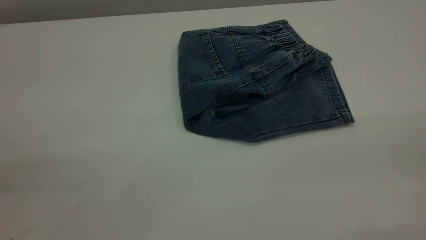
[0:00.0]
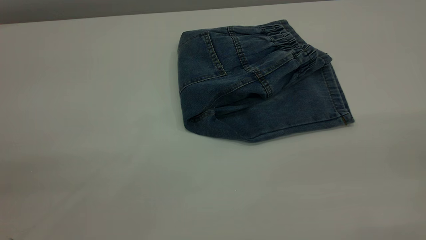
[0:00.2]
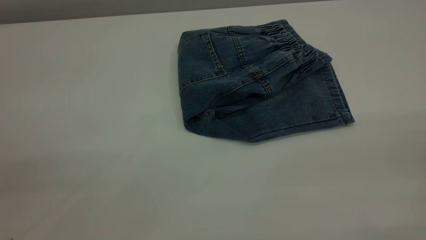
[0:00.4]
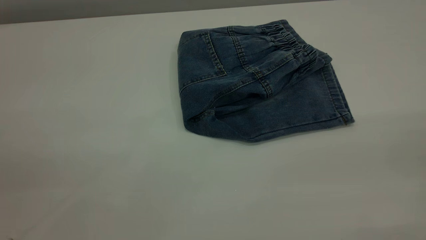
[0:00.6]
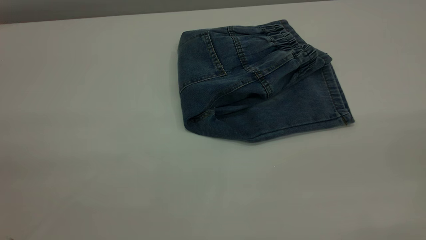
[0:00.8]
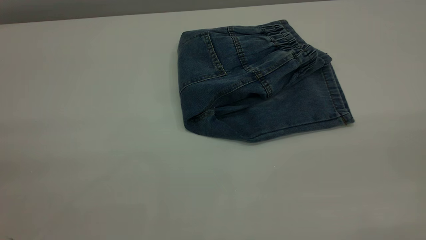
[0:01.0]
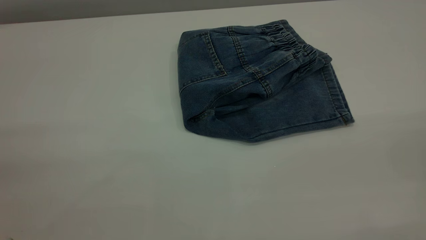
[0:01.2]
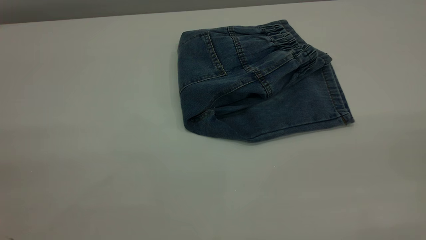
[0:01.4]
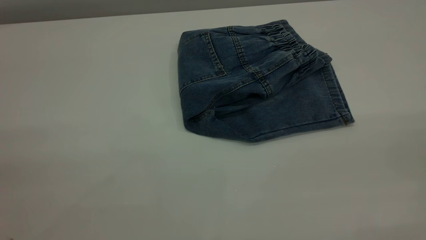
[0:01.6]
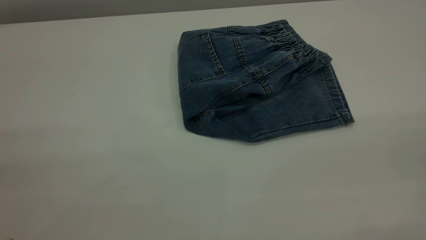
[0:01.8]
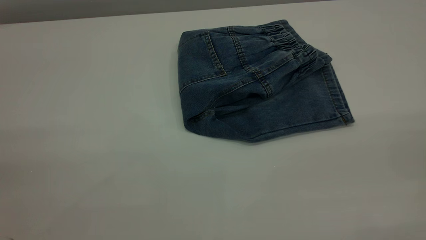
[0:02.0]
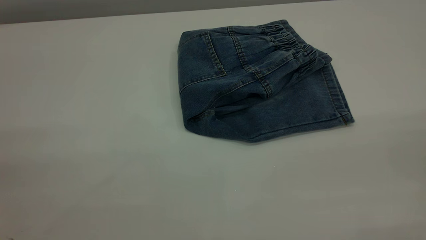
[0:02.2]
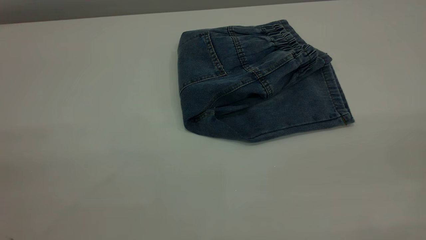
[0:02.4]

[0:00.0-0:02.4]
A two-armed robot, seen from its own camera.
0:01.2 to 0:02.4: Neither gripper changes place.

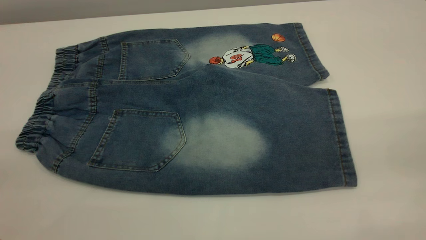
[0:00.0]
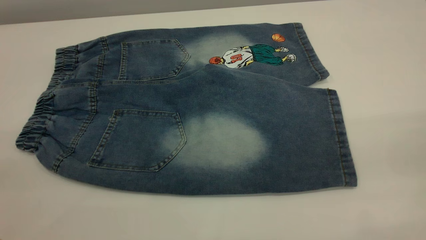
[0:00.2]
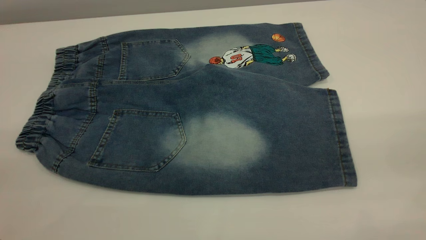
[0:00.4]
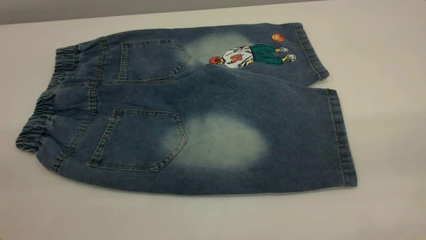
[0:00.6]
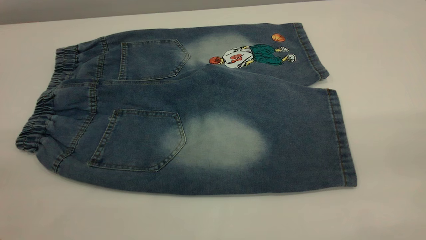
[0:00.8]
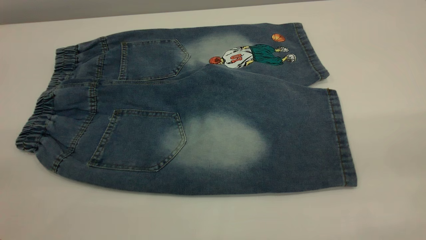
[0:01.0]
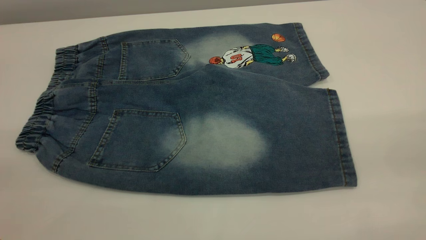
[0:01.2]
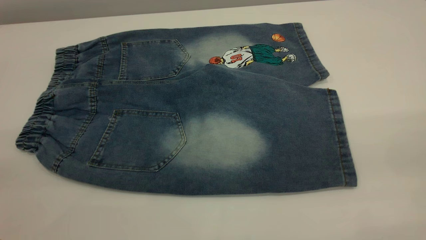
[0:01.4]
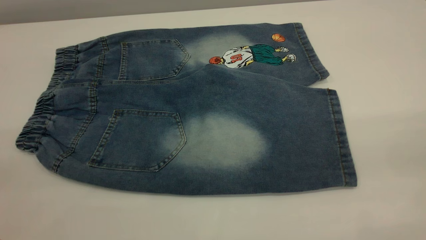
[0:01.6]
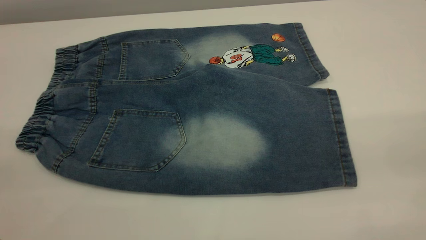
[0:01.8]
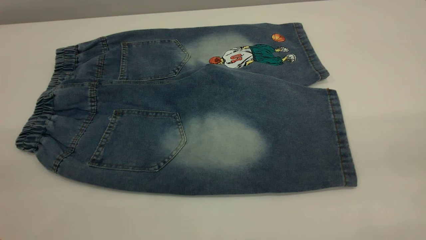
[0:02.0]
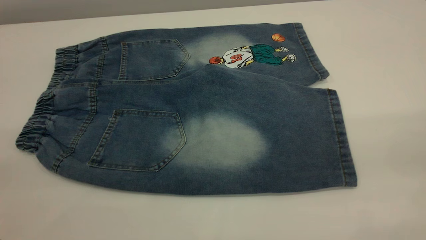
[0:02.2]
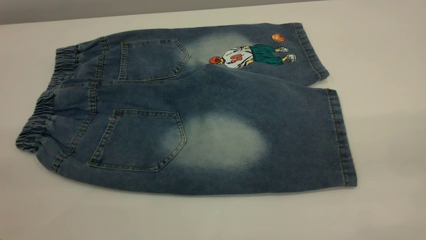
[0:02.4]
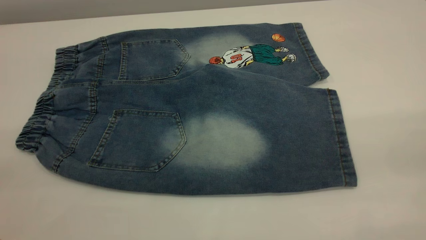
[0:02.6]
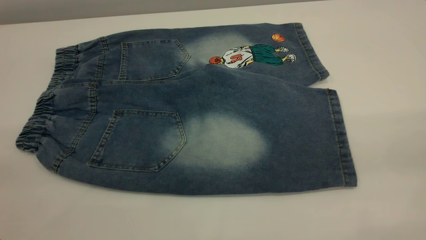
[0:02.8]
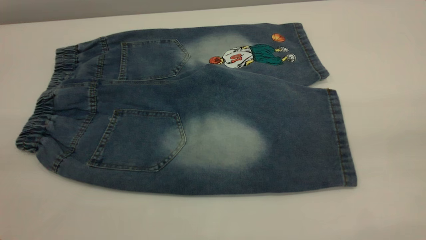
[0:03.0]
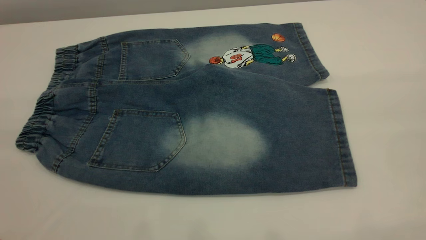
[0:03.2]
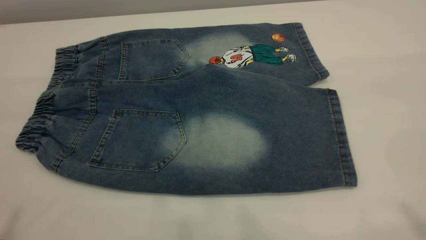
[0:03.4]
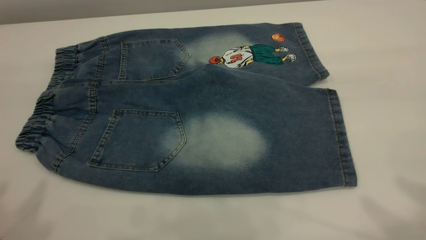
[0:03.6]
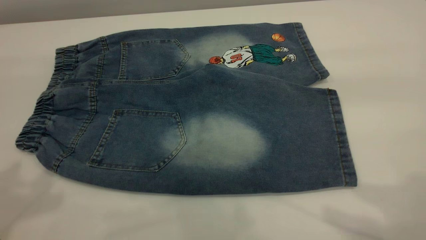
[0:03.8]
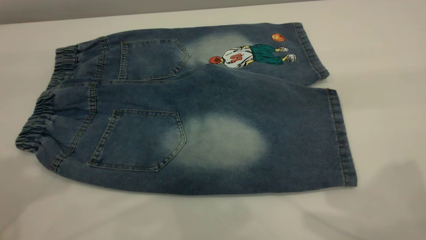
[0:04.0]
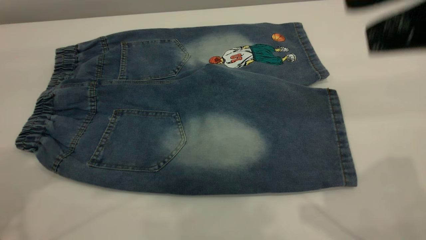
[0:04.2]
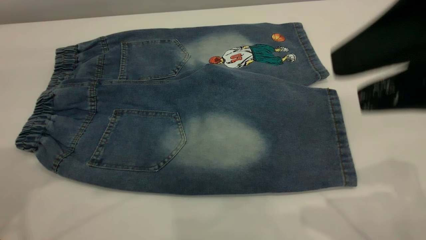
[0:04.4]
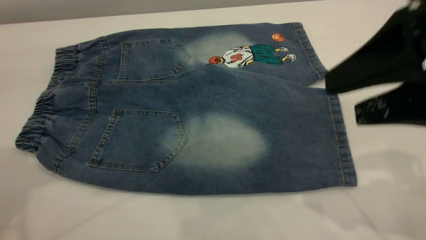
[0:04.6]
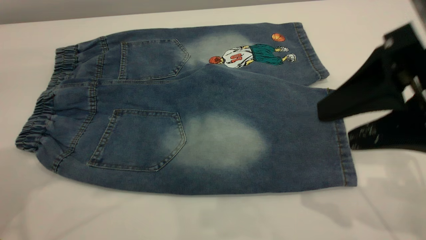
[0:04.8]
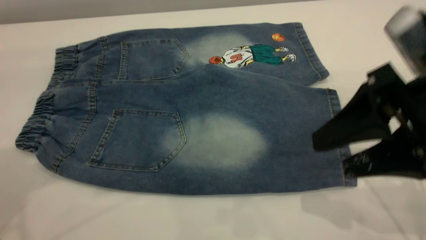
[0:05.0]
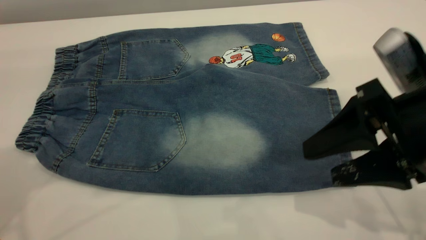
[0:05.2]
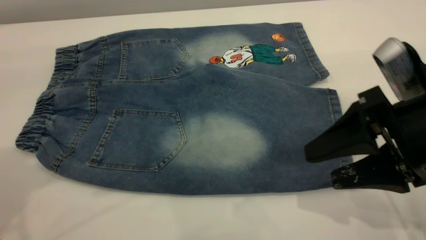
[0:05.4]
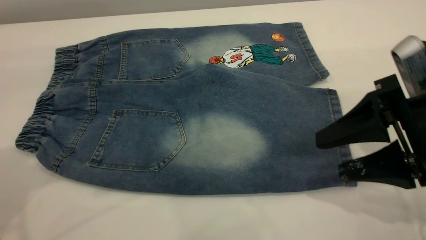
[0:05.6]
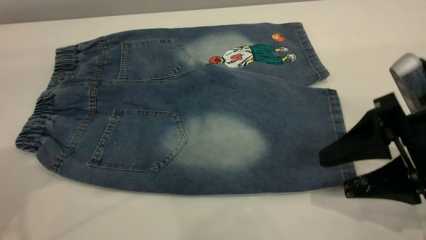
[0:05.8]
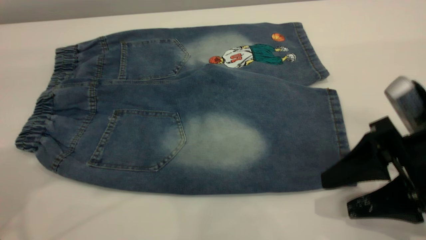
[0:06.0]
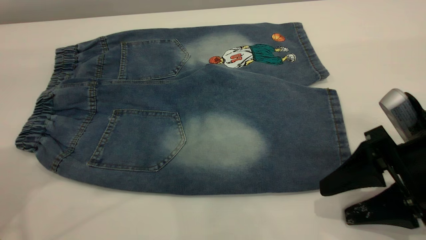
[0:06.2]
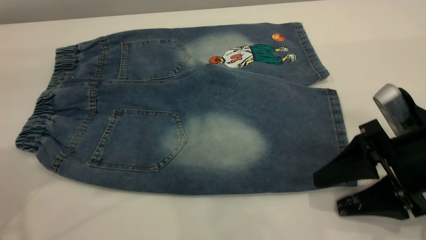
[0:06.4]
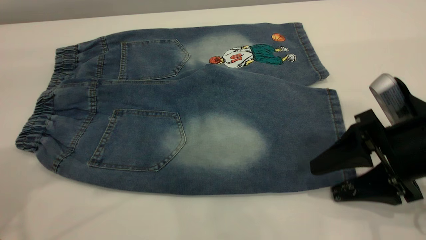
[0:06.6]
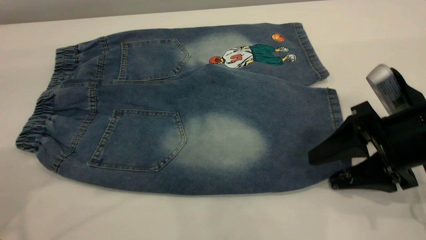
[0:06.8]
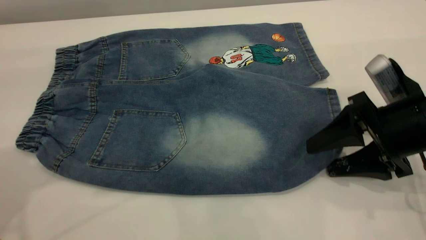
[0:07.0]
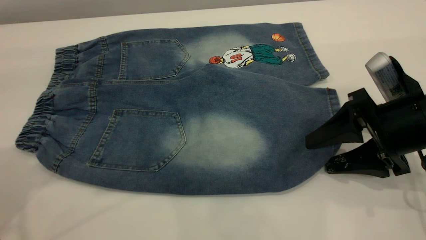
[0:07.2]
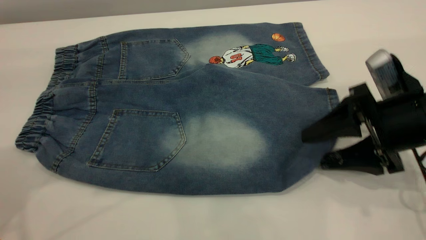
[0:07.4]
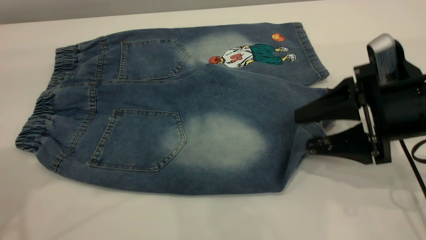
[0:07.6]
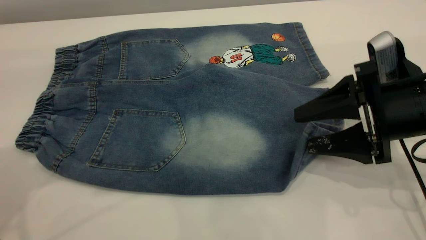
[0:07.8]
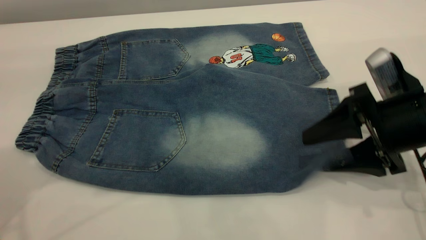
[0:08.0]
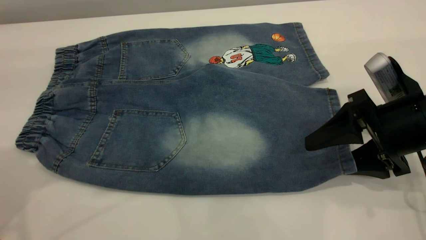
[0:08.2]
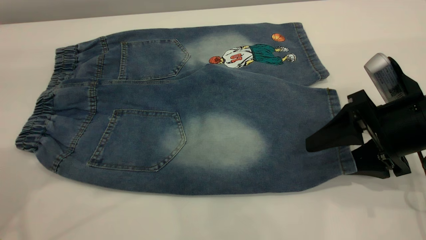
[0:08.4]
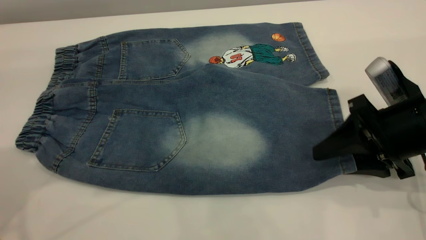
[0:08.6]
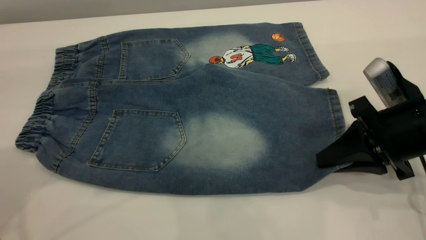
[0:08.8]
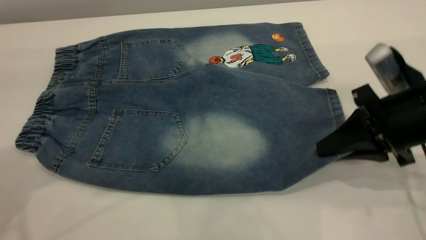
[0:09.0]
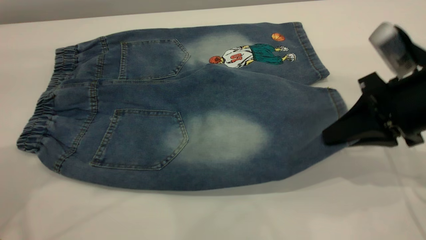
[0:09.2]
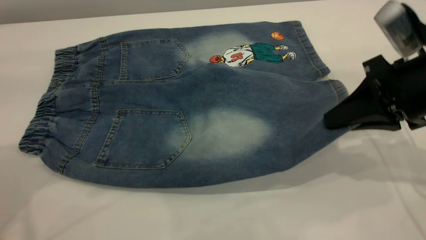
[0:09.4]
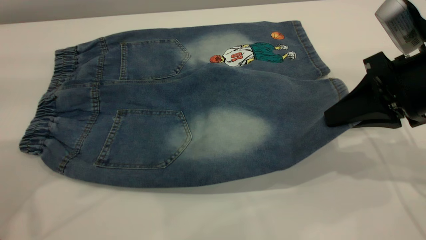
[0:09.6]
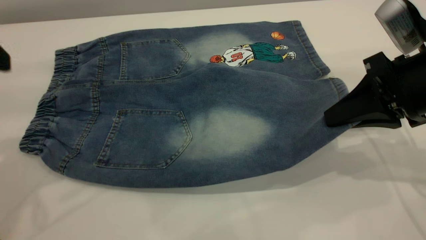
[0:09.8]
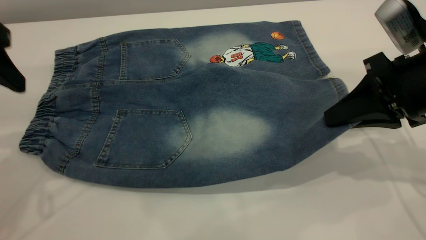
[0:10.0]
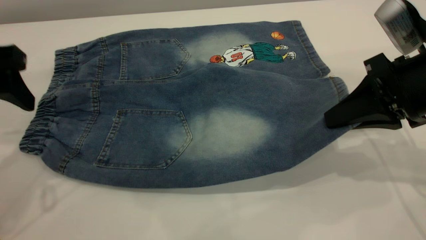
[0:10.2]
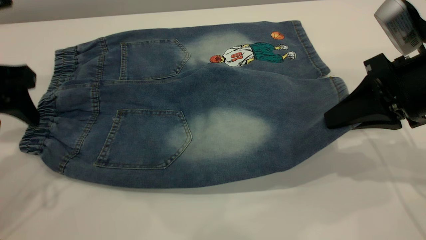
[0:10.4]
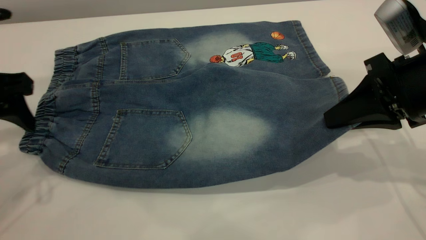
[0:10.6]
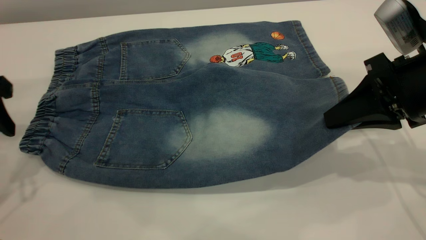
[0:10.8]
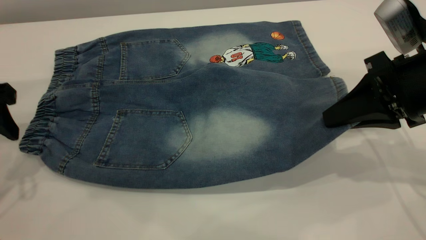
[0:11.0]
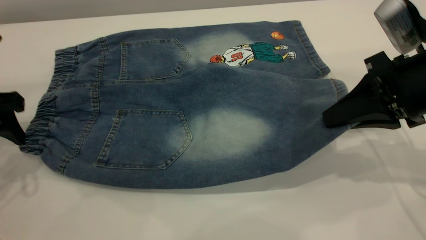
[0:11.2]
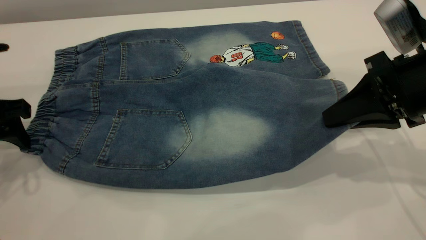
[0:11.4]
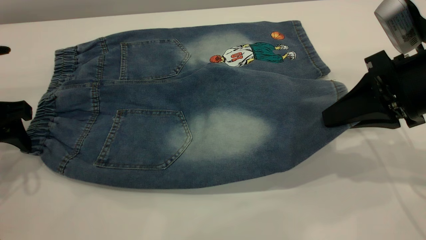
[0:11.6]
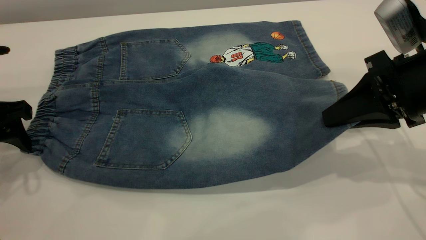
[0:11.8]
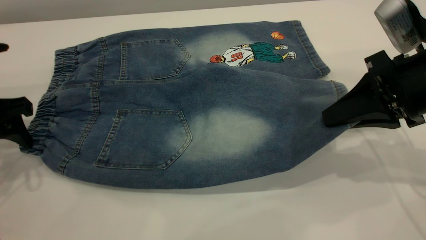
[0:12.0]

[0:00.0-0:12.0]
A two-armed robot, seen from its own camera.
0:00.0 to 0:01.6: Neither gripper changes place.
0:03.0 to 0:04.4: The right gripper moves forward, downward and to the left, about 20 cm.
0:04.4 to 0:06.0: The right gripper heads downward, covering approximately 15 cm.
0:06.0 to 0:07.6: The right gripper heads forward, covering about 5 cm.
0:07.6 to 0:09.0: The right gripper closes up.
0:09.0 to 0:10.4: The left gripper goes some 15 cm downward.
0:10.4 to 0:12.0: The left gripper goes approximately 5 cm downward.

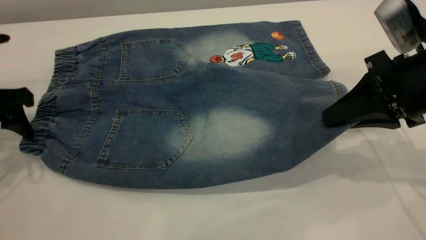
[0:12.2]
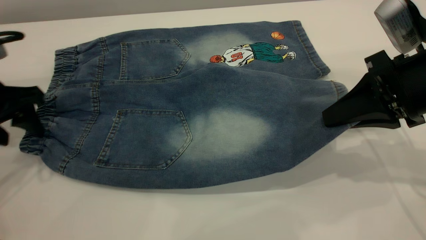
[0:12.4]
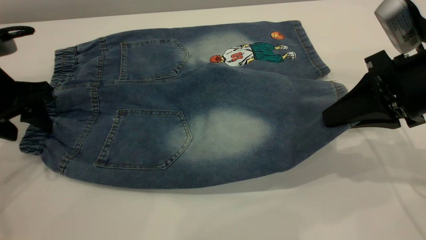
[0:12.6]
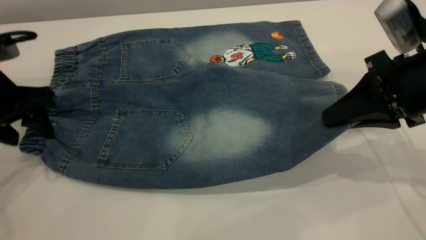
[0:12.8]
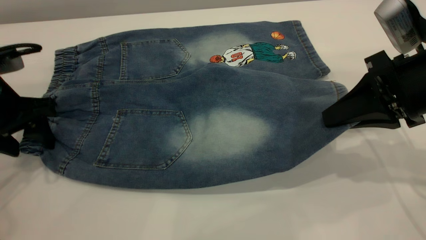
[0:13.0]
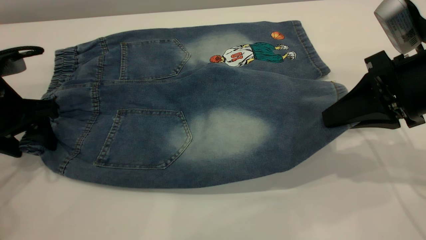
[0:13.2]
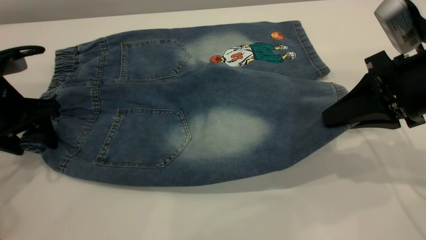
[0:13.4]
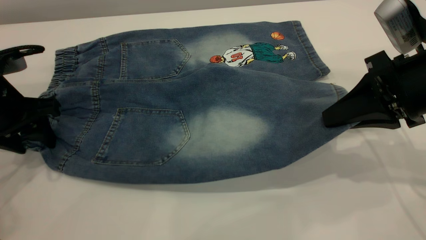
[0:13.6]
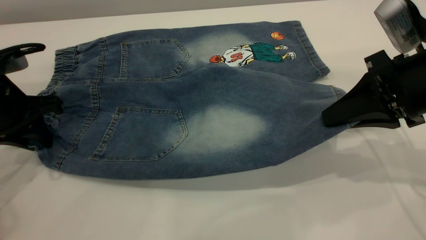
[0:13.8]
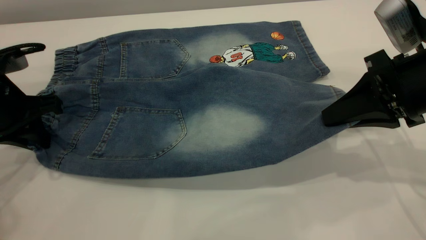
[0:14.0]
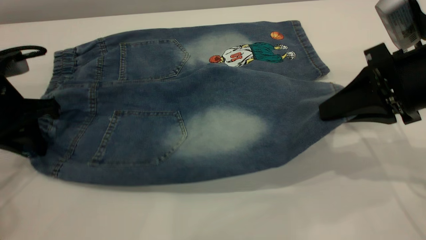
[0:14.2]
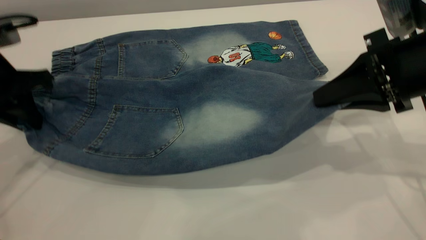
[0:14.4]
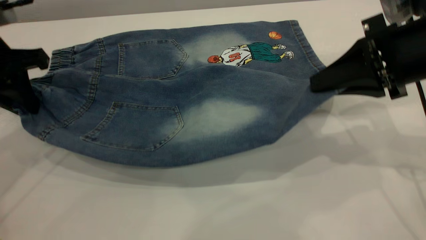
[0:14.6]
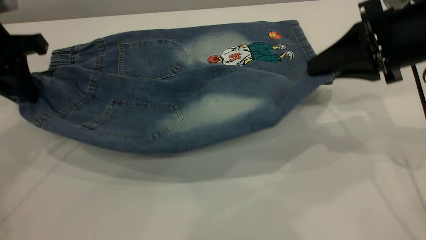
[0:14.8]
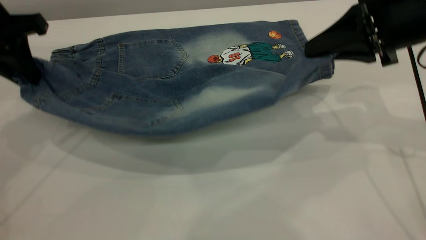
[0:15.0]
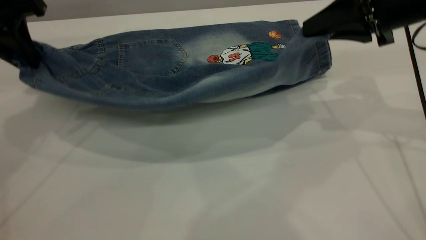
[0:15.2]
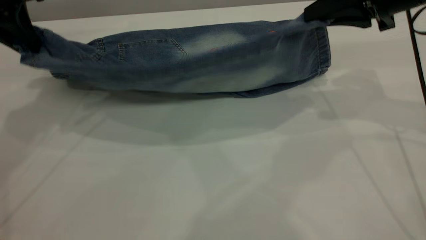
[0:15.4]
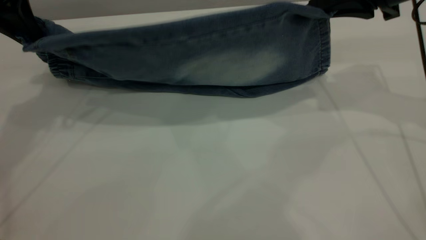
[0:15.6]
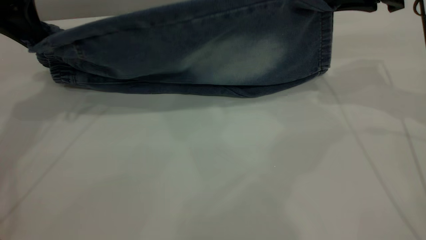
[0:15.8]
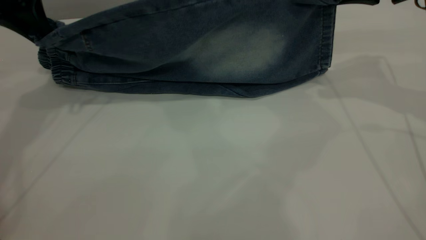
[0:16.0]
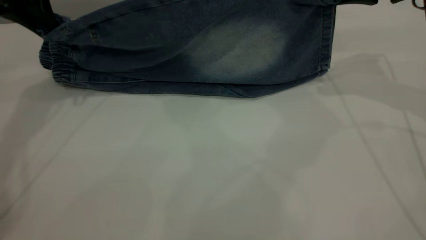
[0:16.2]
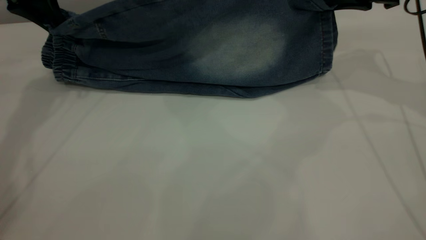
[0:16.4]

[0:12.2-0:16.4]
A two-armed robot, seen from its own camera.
0:12.2 to 0:13.6: The grippers move only a little.
0:13.6 to 0:15.0: The left gripper heads upward and forward, covering approximately 10 cm, and closes its fingers, while the right gripper shifts approximately 5 cm forward.
0:15.0 to 0:16.4: The two grippers go some 10 cm forward.
